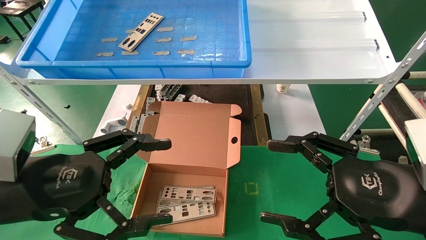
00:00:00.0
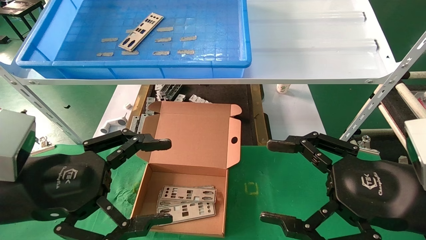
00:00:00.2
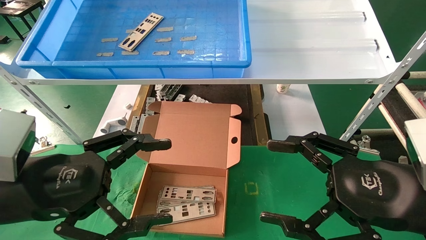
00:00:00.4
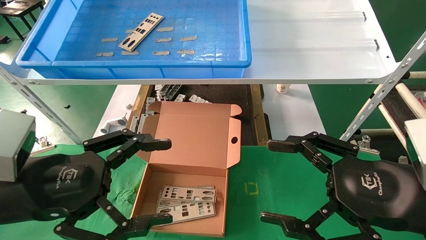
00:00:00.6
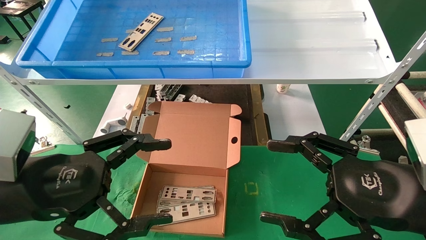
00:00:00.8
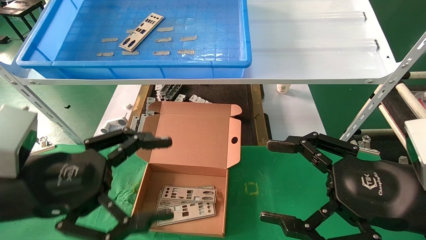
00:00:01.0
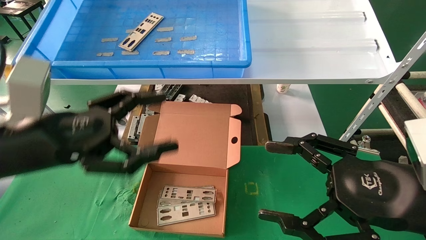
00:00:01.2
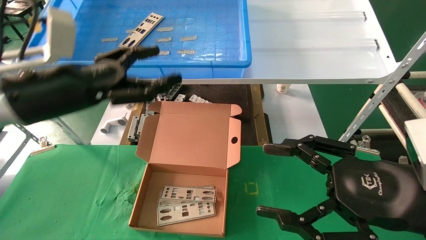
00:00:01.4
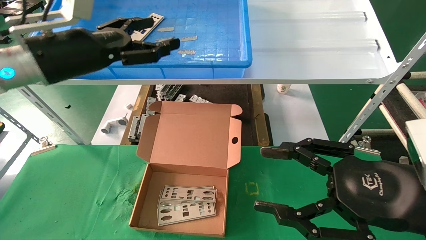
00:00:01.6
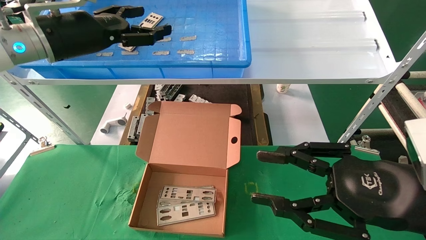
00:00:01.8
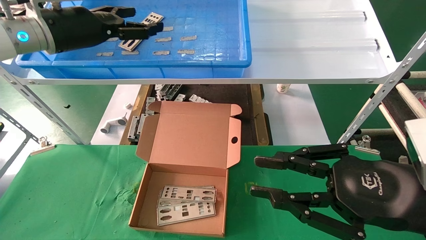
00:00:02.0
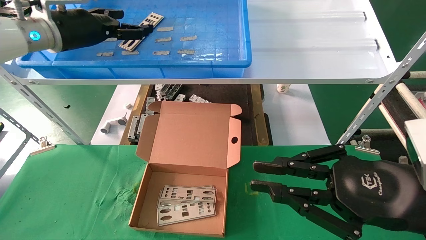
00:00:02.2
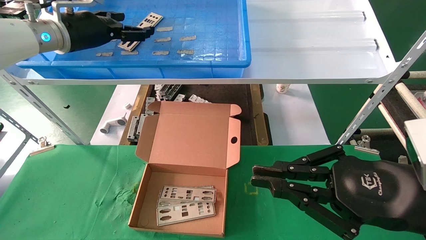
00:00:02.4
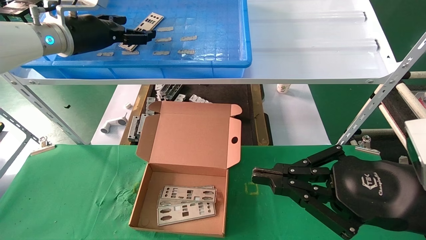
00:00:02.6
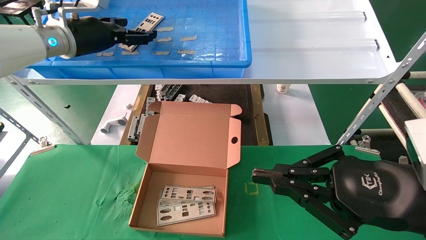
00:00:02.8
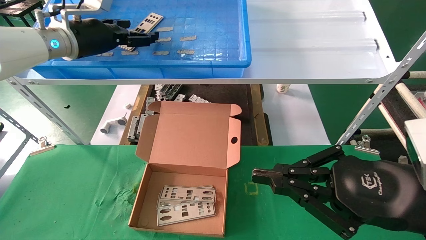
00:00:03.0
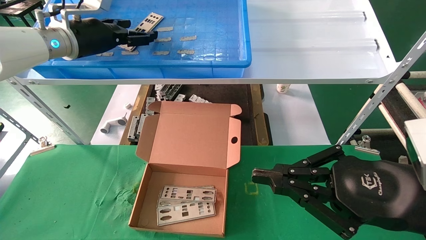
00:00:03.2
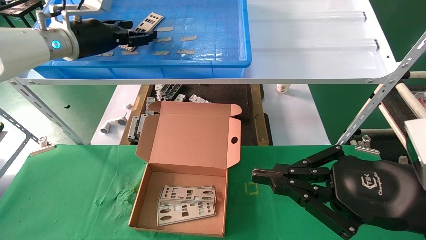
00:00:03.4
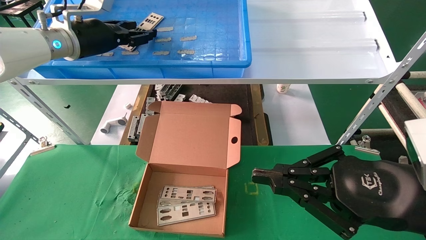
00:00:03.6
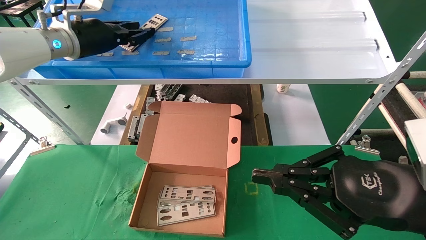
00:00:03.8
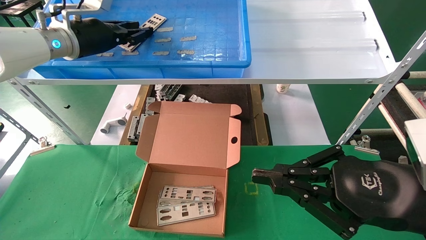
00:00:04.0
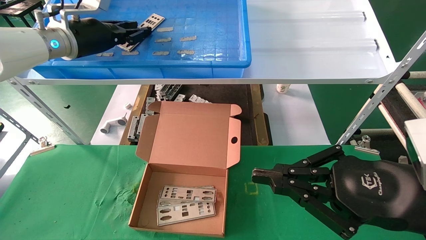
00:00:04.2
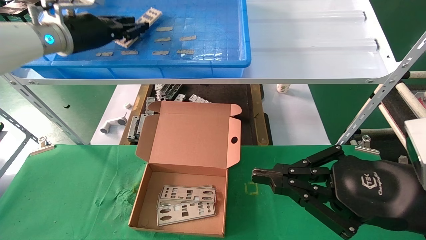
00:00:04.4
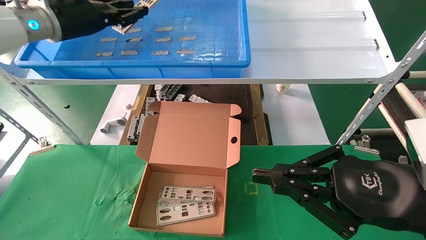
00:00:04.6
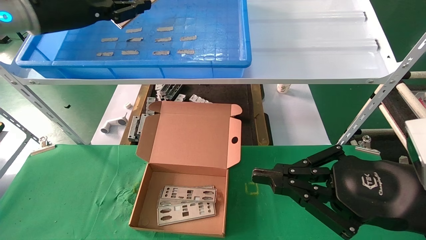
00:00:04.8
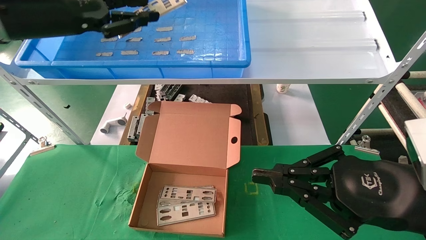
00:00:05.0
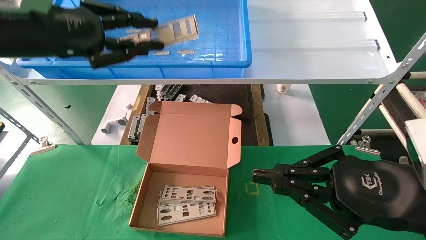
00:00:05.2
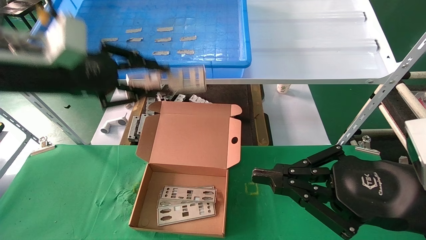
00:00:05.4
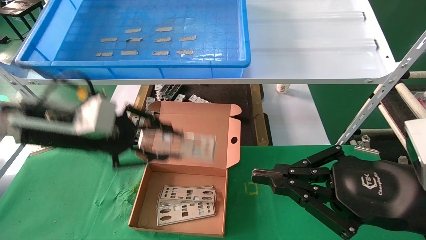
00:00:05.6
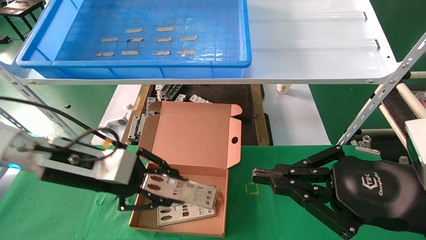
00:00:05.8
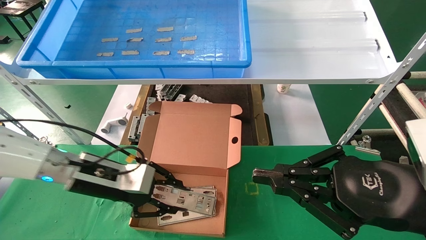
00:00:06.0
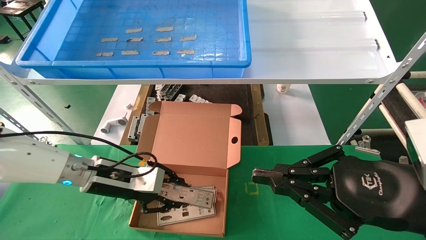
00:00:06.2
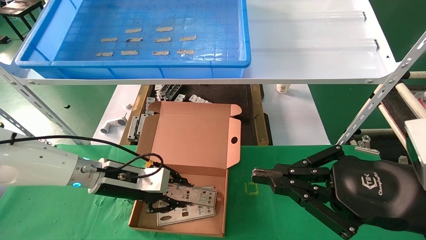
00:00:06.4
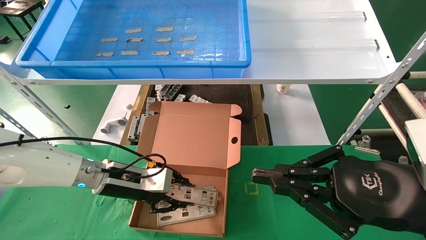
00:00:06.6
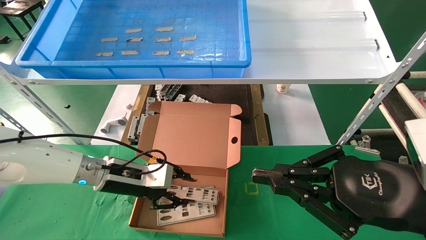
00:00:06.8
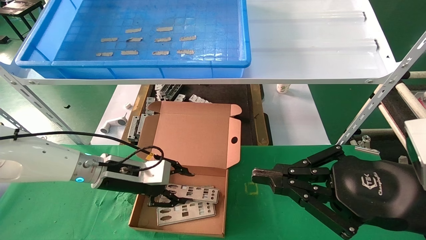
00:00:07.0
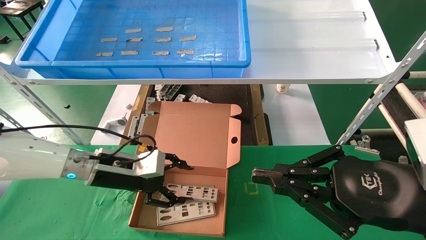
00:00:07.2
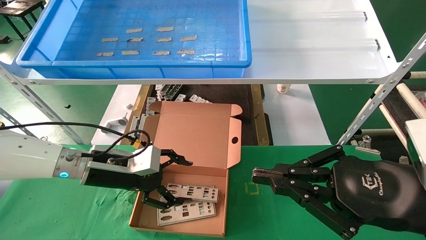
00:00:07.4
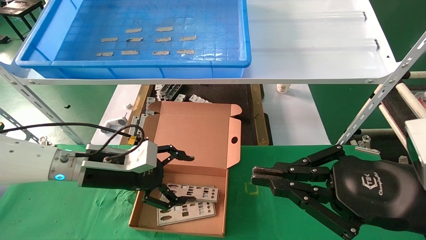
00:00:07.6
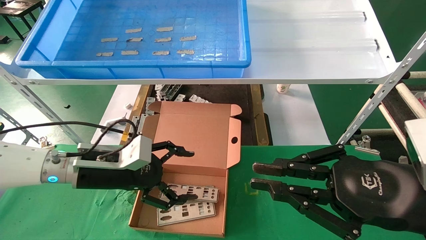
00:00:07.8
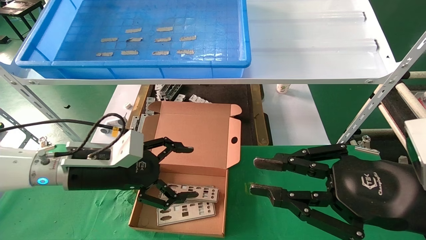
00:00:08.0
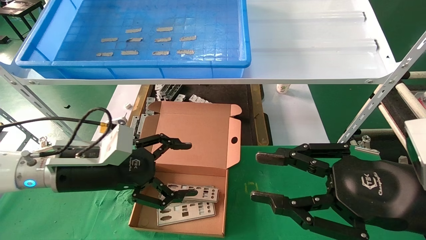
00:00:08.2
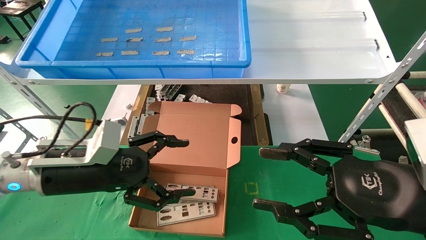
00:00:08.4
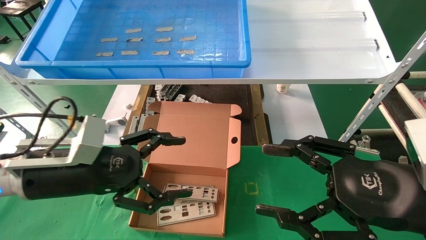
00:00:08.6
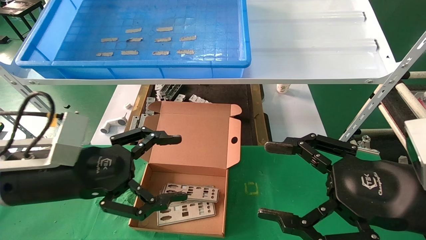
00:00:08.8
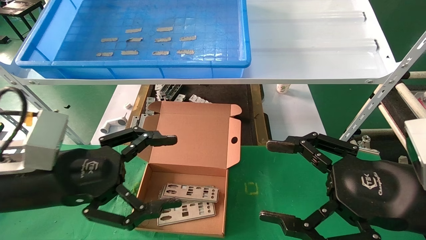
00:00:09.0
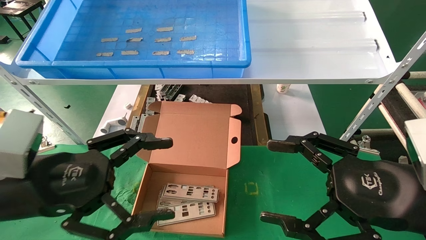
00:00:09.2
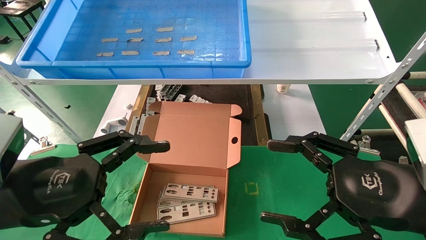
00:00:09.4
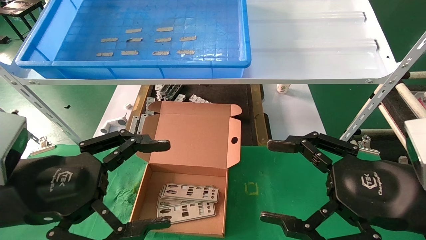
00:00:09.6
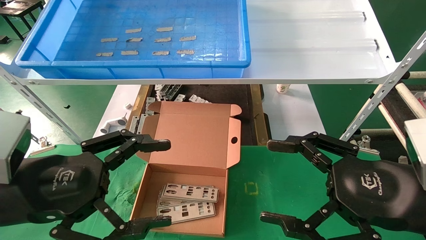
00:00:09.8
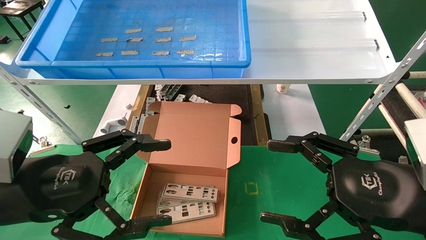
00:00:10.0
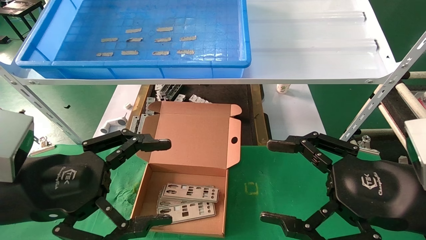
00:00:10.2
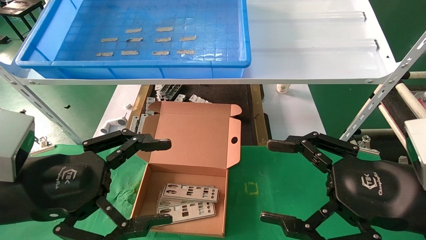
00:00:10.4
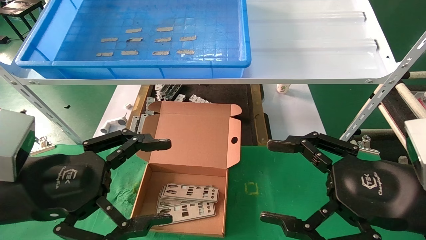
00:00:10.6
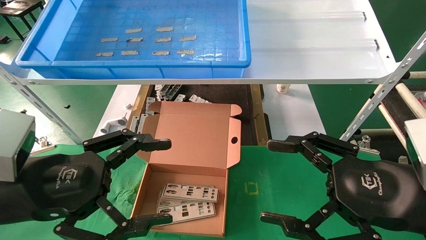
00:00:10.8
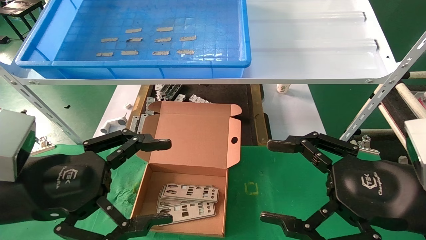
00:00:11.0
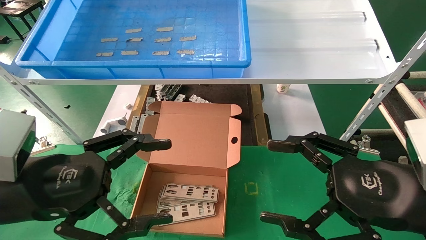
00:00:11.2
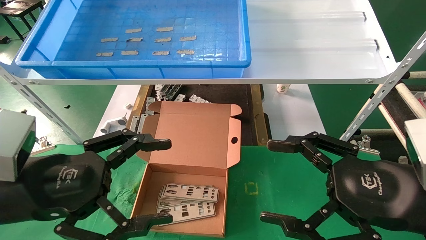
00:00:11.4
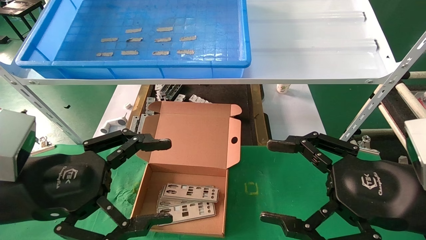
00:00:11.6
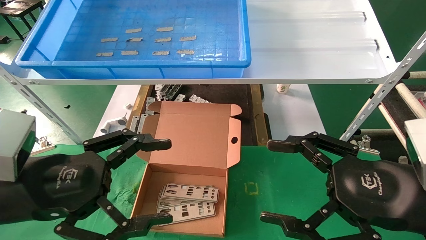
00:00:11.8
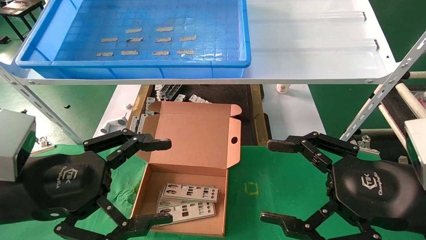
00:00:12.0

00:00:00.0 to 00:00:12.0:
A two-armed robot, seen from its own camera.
Task of the whole recording: pick up the parts on the tray and put them in the cardboard box.
Step, 00:00:01.6 to 00:00:04.8: Pick up the IO bracket from the container box.
Step, 00:00:05.0 to 00:00:07.0: Place the IO bracket into the ingredient slot.
00:00:00.0 to 00:00:01.6: The left gripper travels forward and upward by some 20 cm.
00:00:01.6 to 00:00:03.0: The right gripper closes up, while the left gripper moves forward, approximately 10 cm.
00:00:03.0 to 00:00:04.4: The left gripper closes its fingers.
00:00:04.4 to 00:00:06.0: The left gripper travels downward and backward by approximately 25 cm.
00:00:06.0 to 00:00:07.6: The left gripper opens up.
00:00:07.6 to 00:00:09.0: The left gripper moves backward and upward, about 15 cm. The right gripper opens.
00:00:09.0 to 00:00:10.4: There are only small adjustments of the grippers.
00:00:10.4 to 00:00:12.0: The two grippers keep their place.

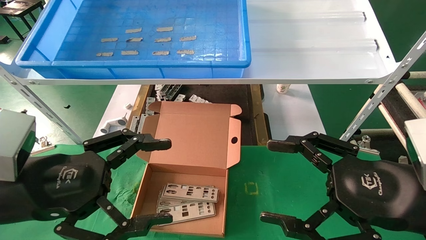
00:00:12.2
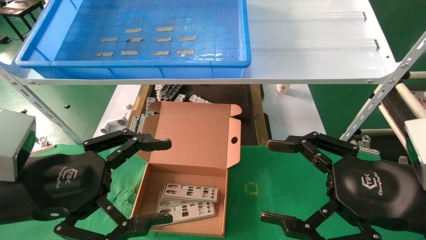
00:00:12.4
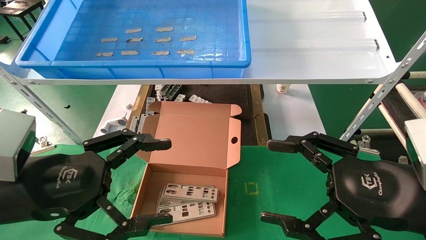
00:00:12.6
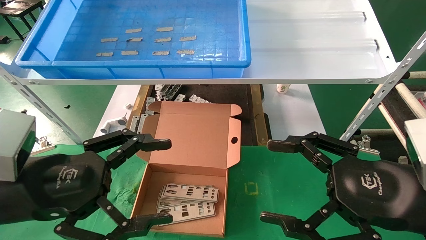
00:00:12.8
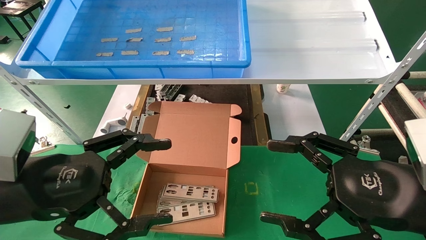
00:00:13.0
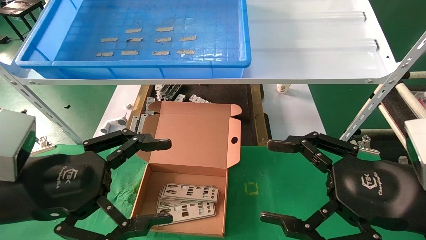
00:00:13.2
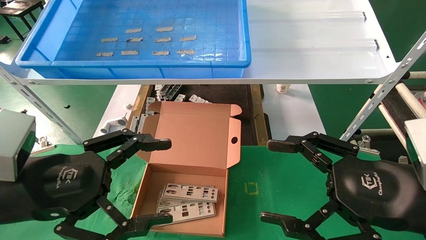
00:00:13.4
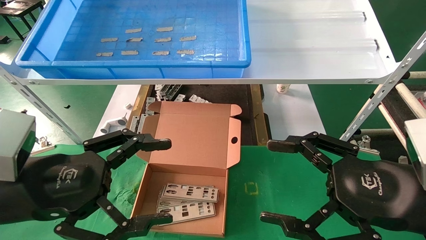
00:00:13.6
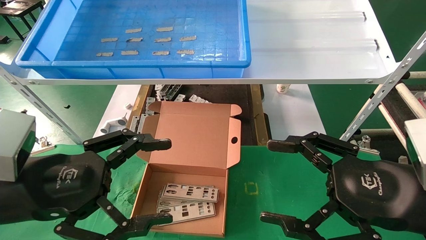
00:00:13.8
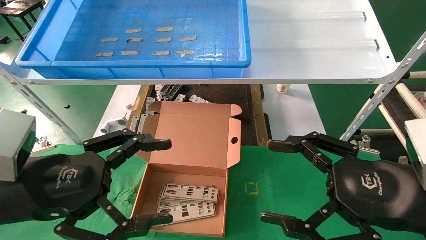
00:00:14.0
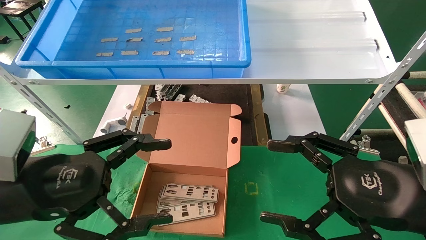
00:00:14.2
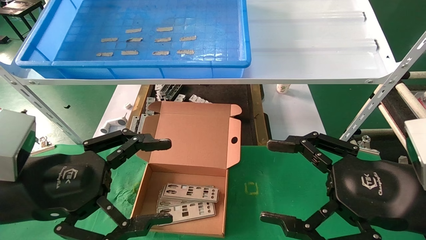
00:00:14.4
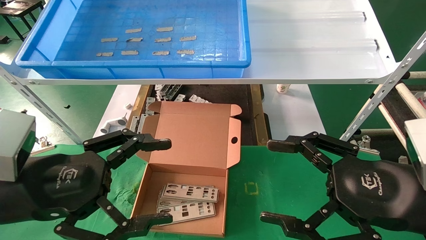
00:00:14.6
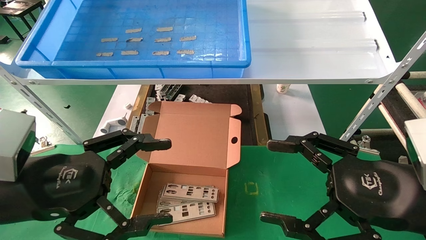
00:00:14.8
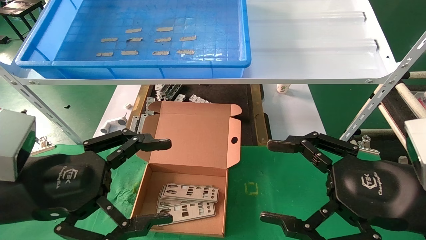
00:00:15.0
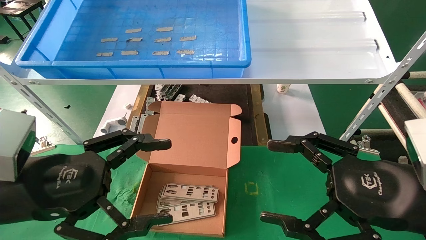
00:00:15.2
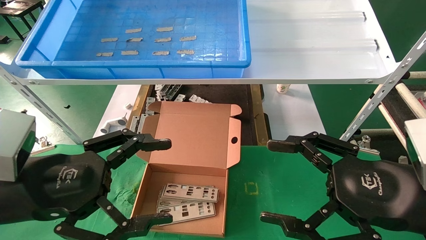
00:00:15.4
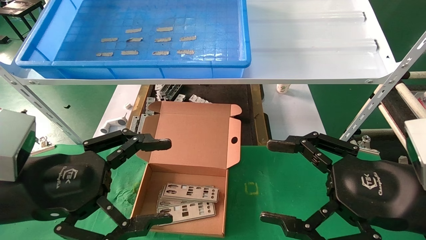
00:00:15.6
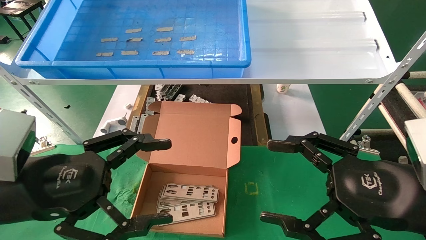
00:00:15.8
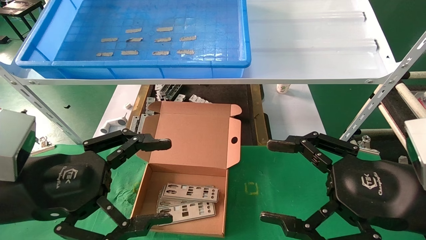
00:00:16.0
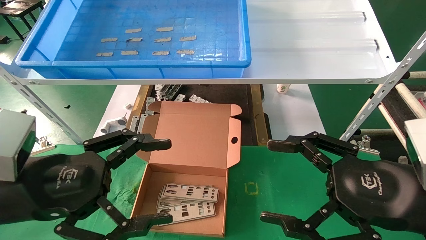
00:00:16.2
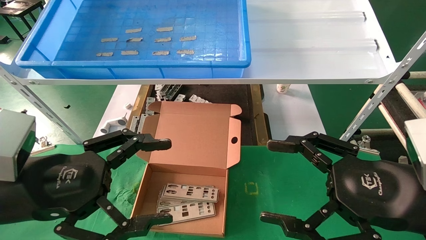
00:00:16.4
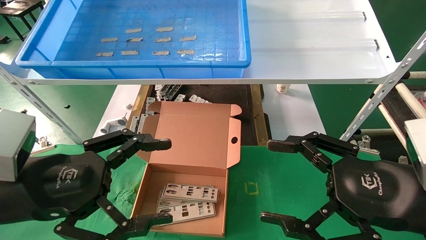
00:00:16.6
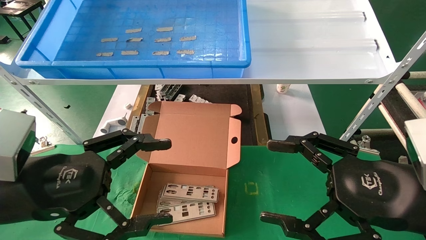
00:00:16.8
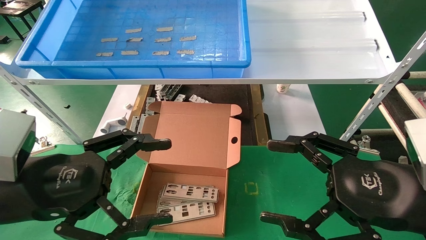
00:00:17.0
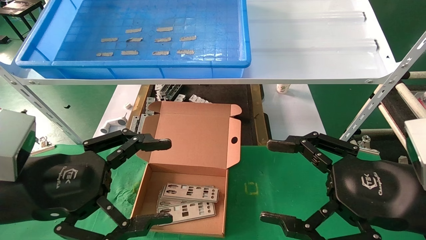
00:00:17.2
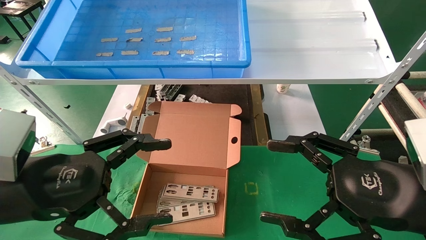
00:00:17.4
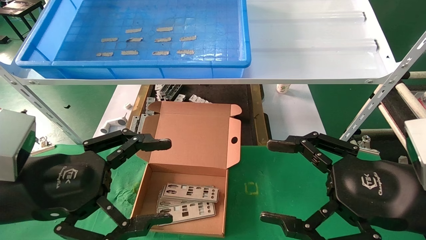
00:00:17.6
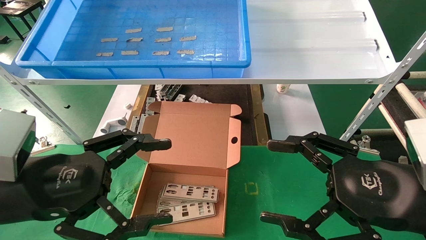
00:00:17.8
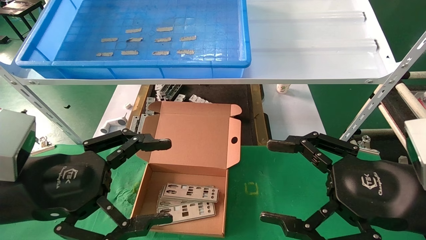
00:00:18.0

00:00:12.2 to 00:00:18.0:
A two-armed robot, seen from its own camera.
Task of the whole recording: pick up the parts on the tray and put them in the cardboard box.
00:00:12.2 to 00:00:18.0: Neither gripper changes place.
